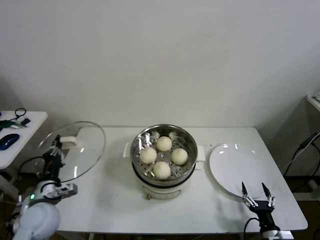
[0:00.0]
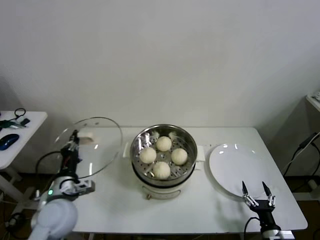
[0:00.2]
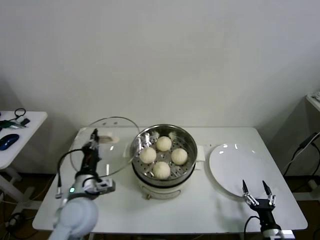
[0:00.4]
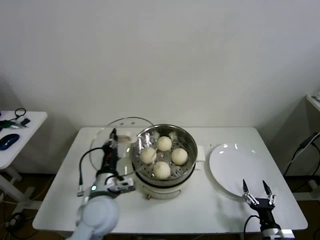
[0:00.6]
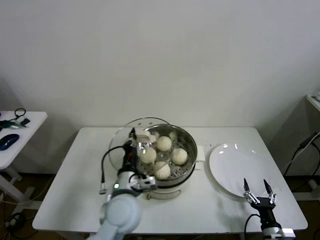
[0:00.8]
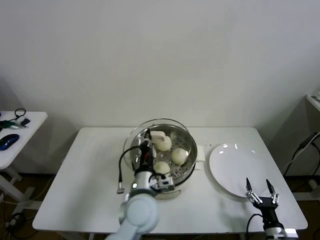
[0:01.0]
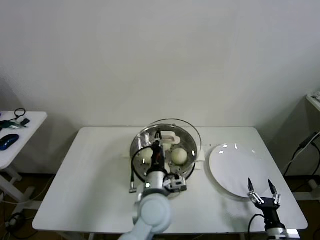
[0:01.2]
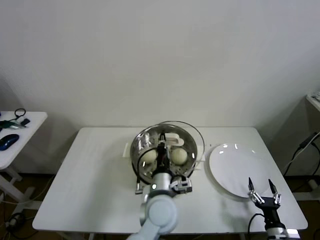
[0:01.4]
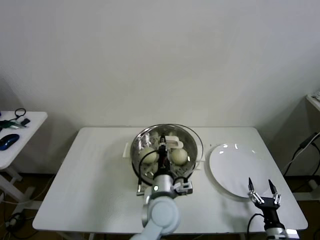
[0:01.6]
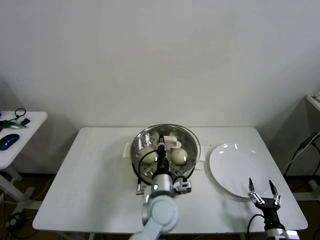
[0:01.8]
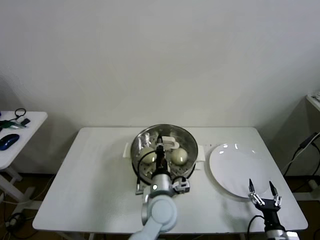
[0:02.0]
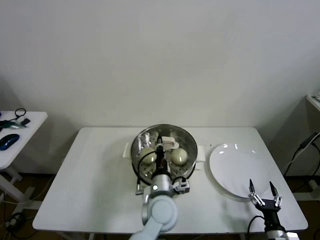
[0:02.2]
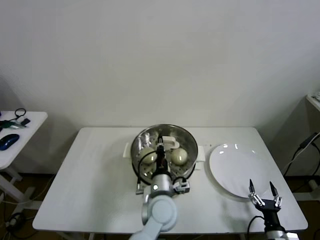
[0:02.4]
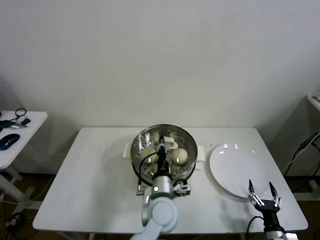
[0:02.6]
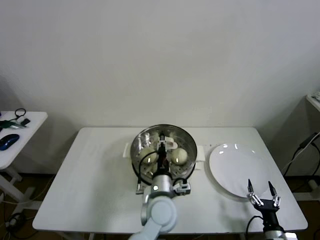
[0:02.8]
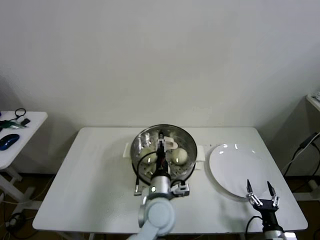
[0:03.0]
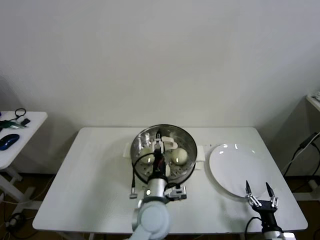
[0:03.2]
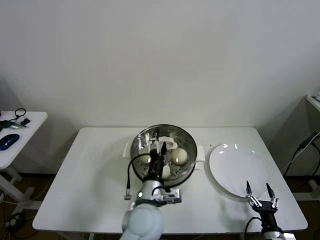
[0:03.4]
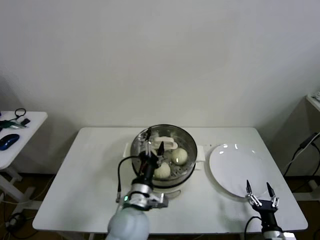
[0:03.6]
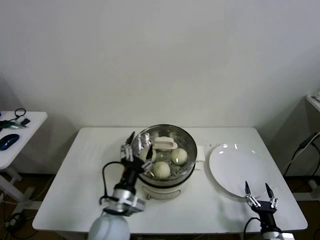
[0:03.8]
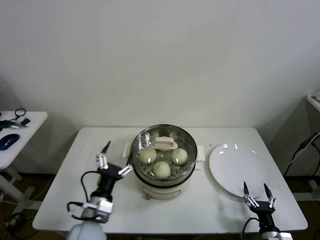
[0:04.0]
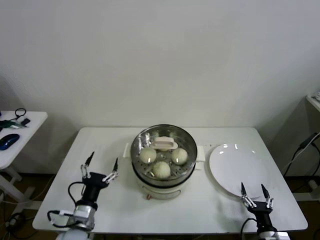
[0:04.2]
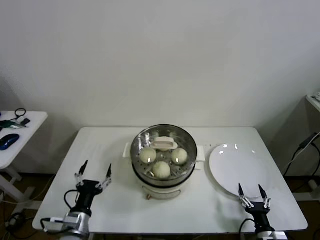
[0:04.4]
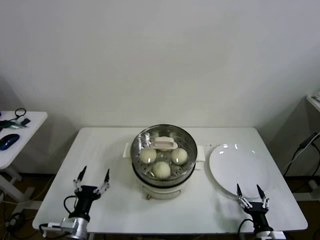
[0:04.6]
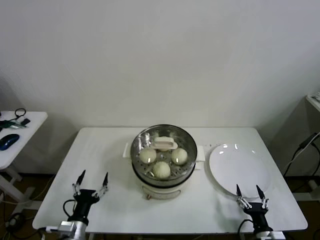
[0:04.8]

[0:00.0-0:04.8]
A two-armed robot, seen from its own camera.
Step, 0:00.0 to 0:02.8: Place the pot lid on the steamer with left gripper.
0:00.0 to 0:01.6: The left gripper heads to the right, covering some 35 cm.
0:01.6 to 0:03.2: The left gripper opens.
0:03.2 to 0:04.8: The left gripper goes approximately 25 cm to the left.

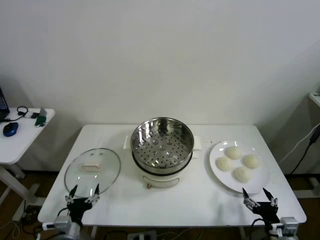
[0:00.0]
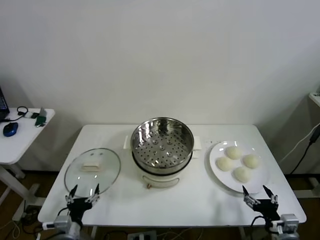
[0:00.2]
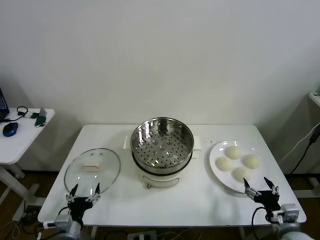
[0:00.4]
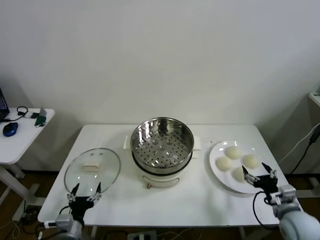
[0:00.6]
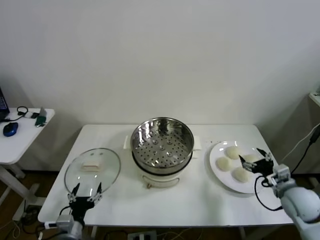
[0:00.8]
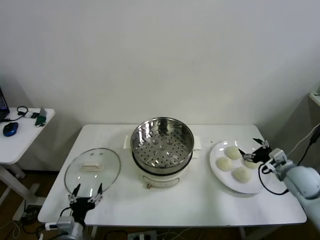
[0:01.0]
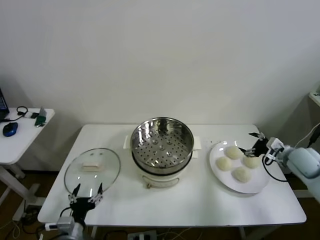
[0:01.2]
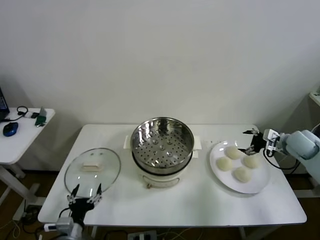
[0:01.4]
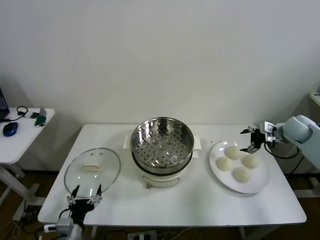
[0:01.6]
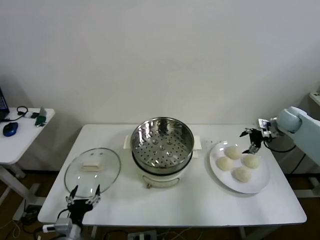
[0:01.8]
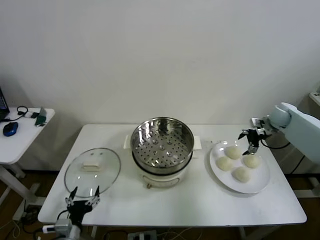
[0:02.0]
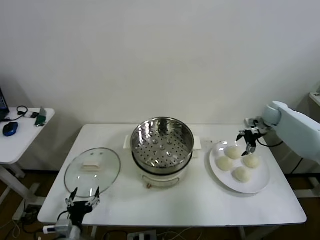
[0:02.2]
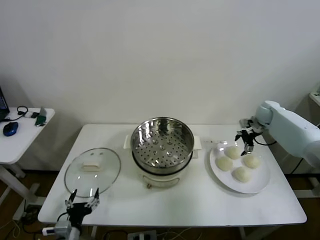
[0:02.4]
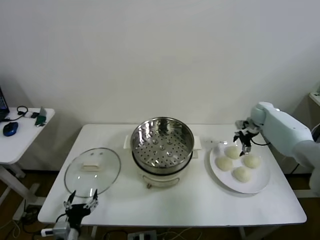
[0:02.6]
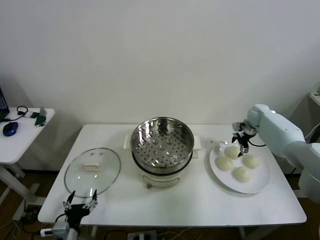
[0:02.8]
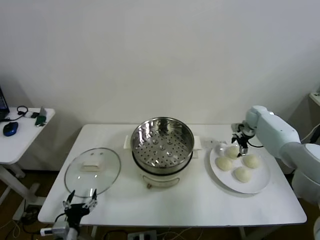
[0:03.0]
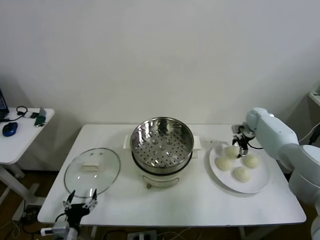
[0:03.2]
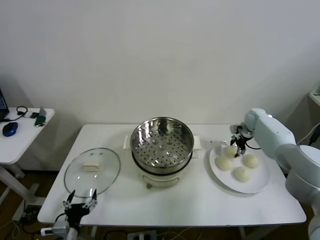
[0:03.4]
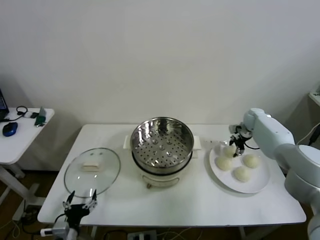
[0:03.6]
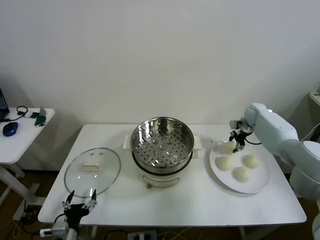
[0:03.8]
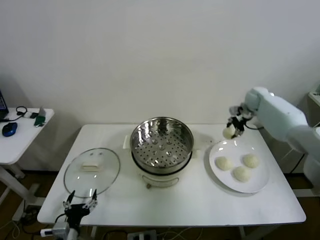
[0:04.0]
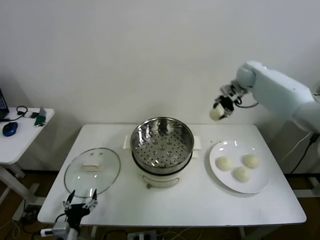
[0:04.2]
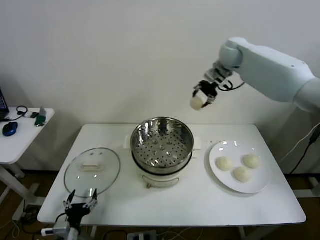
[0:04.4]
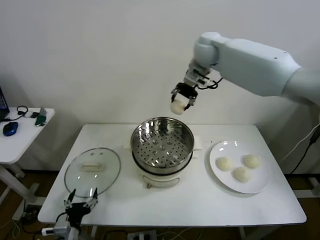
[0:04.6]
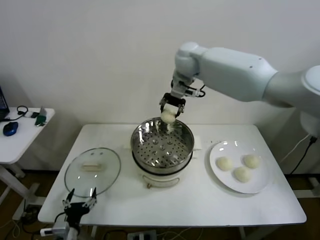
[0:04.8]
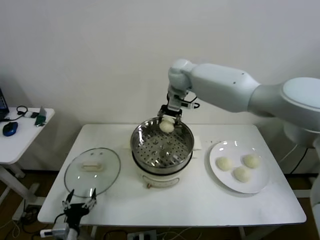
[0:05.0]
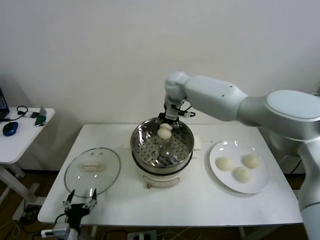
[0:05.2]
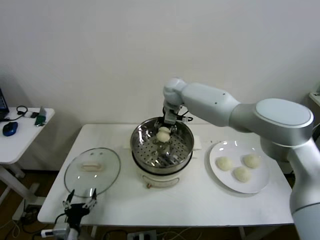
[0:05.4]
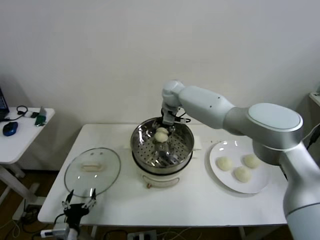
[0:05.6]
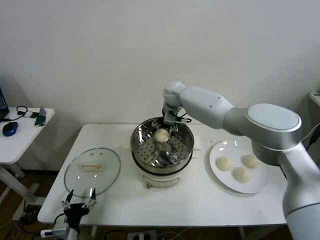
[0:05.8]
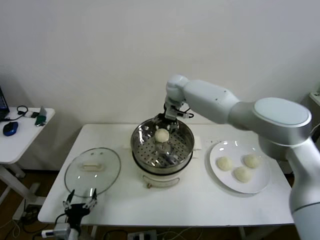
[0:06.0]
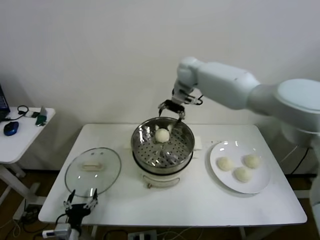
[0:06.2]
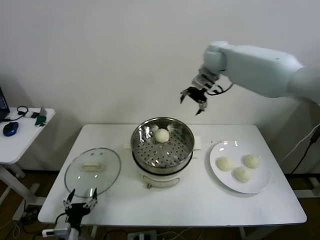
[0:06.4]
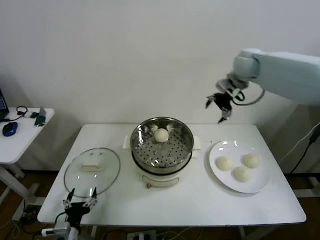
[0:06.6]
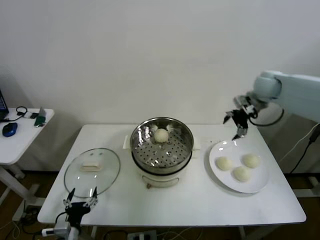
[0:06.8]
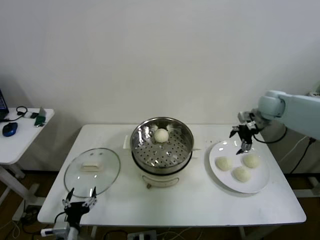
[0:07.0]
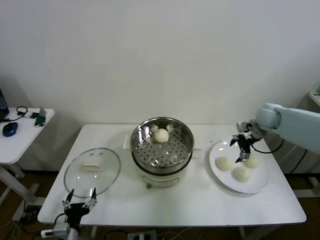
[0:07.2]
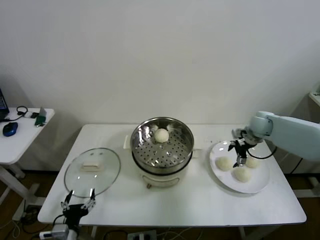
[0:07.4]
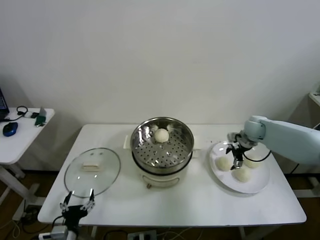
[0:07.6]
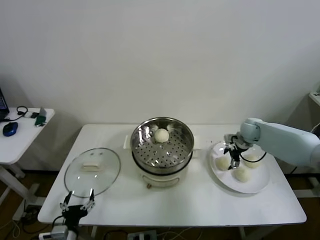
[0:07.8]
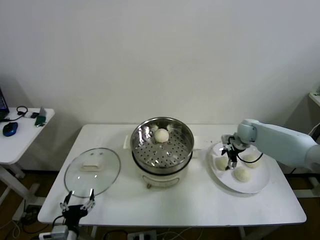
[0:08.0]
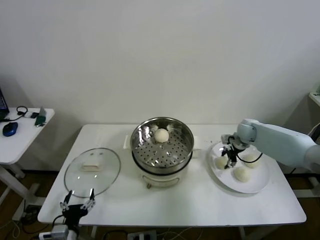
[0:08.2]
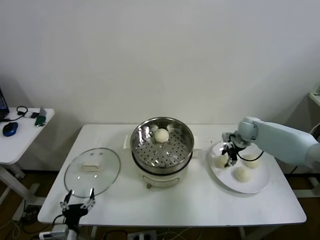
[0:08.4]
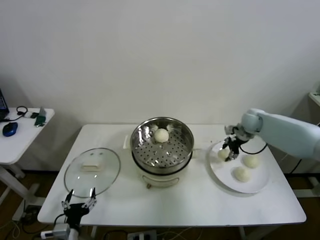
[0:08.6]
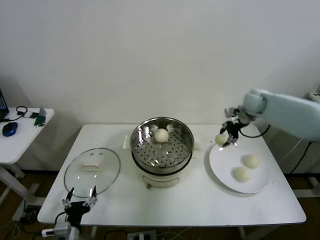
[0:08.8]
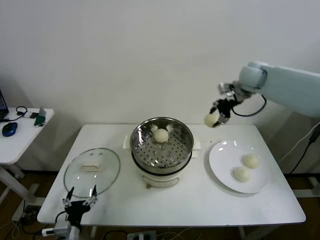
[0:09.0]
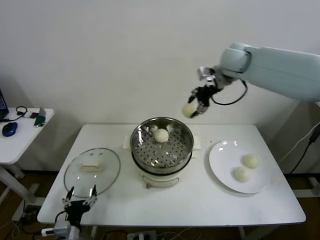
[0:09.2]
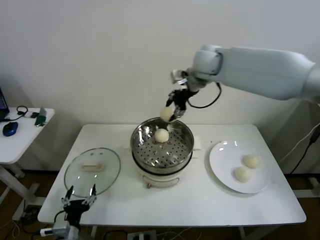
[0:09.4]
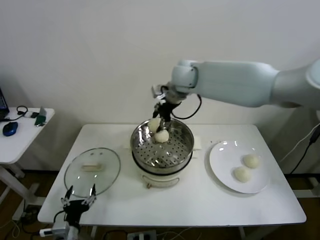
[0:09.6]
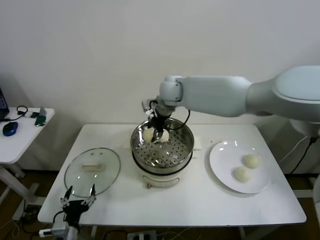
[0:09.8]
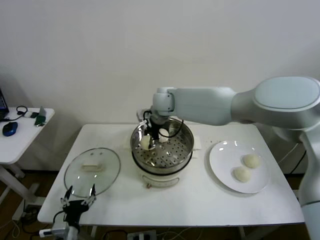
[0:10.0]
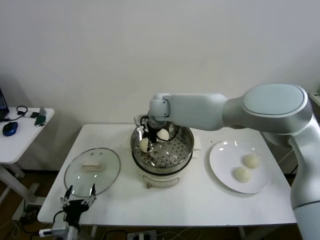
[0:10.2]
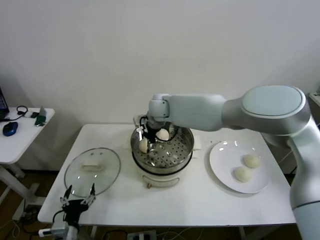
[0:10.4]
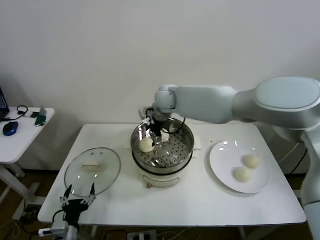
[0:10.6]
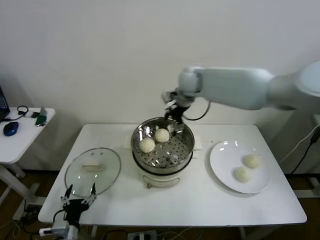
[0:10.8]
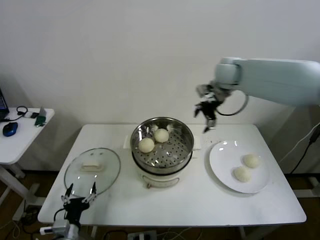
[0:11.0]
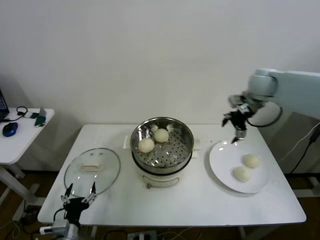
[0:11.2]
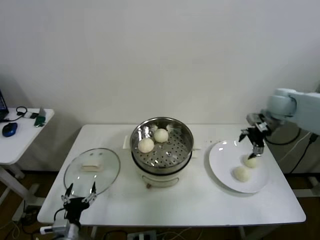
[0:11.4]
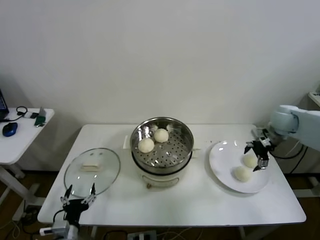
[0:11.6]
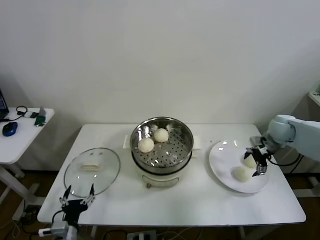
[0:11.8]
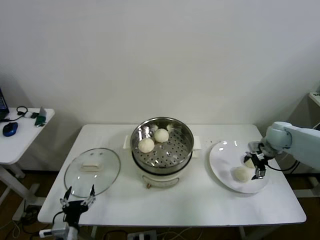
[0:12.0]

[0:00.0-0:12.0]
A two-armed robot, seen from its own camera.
Step, 0:00.0 to 0:03.4: Grasp the baozi in the plate with right gripper.
Step, 0:03.6 to 0:05.6: Place the baozi on the steamer with right gripper.
Step, 0:05.8 to 0:08.2: Grasp the baozi in the plate with right gripper.
Step, 0:08.4 to 0:10.4: Place the baozi on the steamer with right gripper.
0:01.6 to 0:03.0: The right gripper heads forward, downward and to the left, covering about 15 cm.
0:03.0 to 0:04.4: The right gripper travels upward and to the left by approximately 40 cm, and closes up.
0:04.4 to 0:06.0: The right gripper is displaced downward and to the left by roughly 15 cm, and opens.
0:06.0 to 0:07.6: The right gripper moves to the right and downward, roughly 35 cm.
0:07.6 to 0:09.0: The right gripper heads upward, covering some 25 cm, and closes.
0:09.0 to 0:10.4: The right gripper travels to the left and downward by roughly 30 cm, and opens its fingers.
0:10.4 to 0:12.0: The right gripper moves to the right, roughly 40 cm.

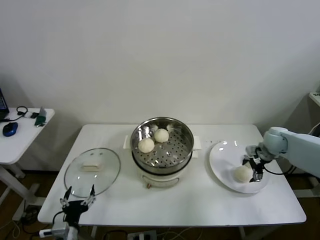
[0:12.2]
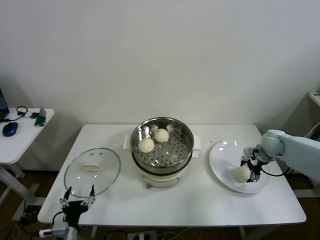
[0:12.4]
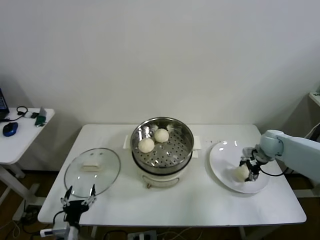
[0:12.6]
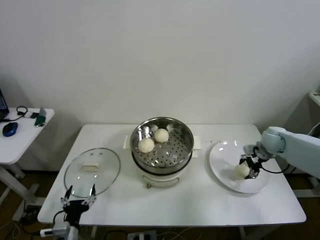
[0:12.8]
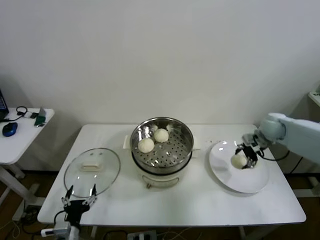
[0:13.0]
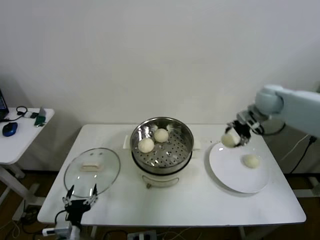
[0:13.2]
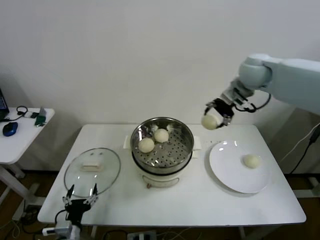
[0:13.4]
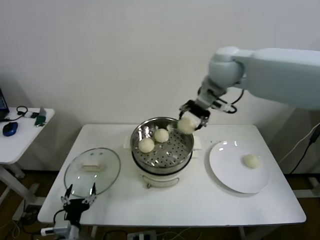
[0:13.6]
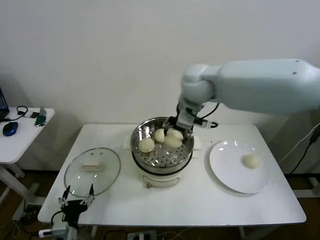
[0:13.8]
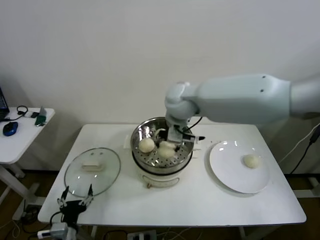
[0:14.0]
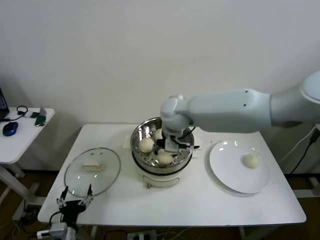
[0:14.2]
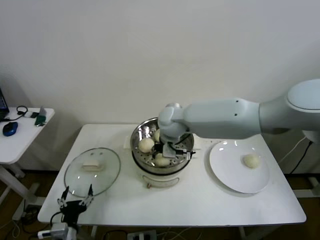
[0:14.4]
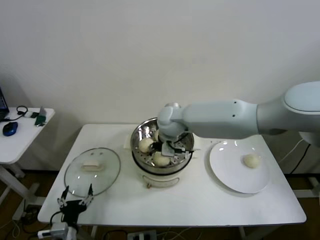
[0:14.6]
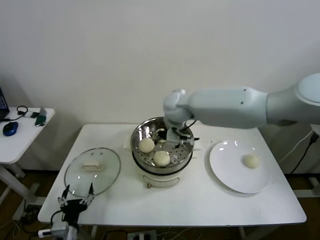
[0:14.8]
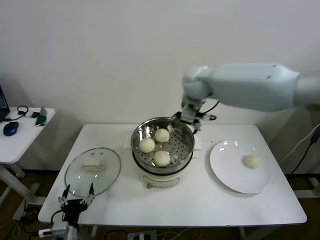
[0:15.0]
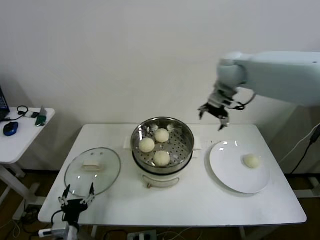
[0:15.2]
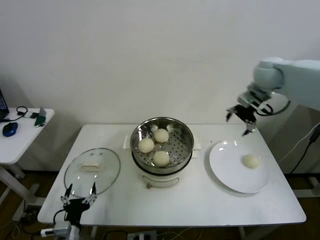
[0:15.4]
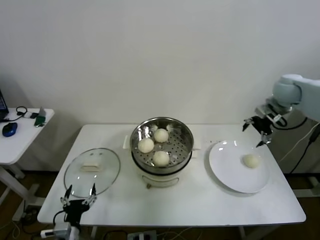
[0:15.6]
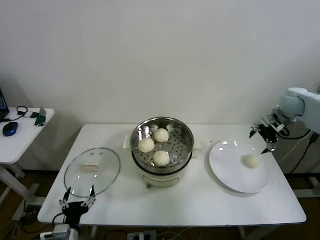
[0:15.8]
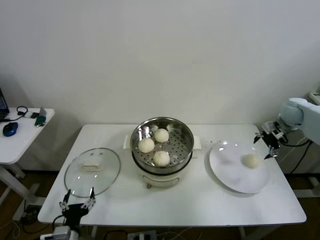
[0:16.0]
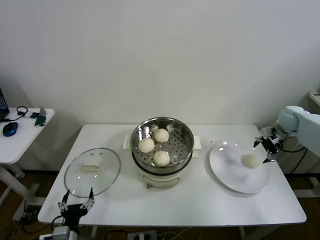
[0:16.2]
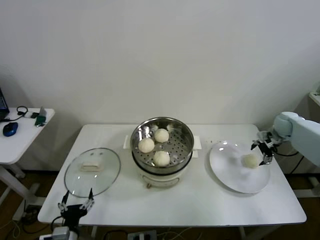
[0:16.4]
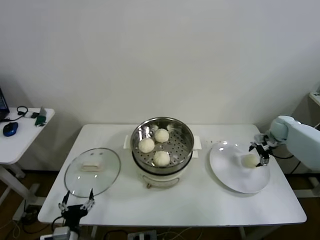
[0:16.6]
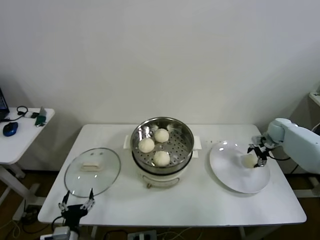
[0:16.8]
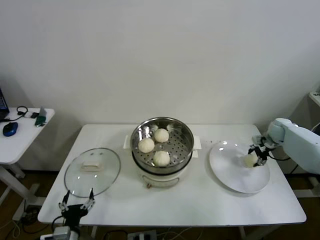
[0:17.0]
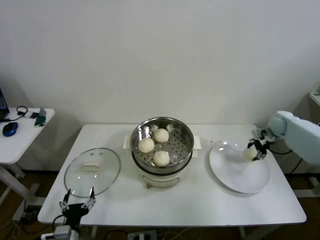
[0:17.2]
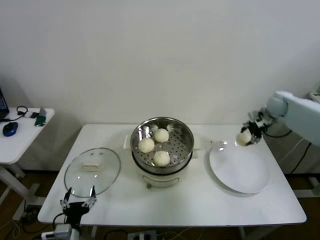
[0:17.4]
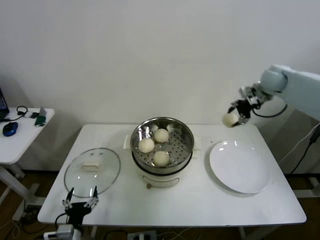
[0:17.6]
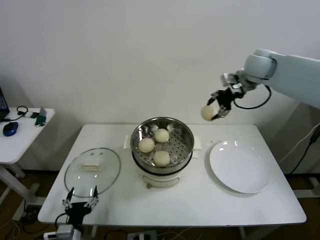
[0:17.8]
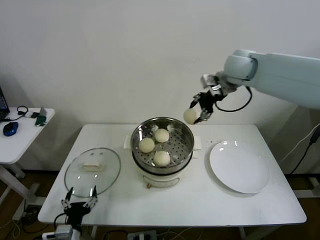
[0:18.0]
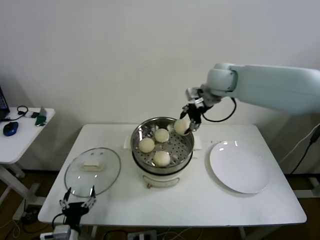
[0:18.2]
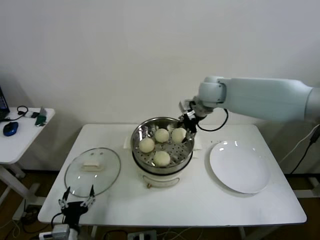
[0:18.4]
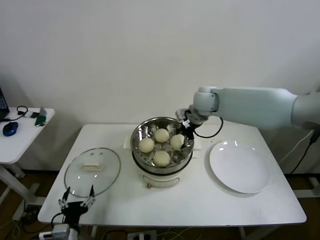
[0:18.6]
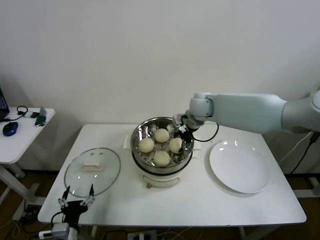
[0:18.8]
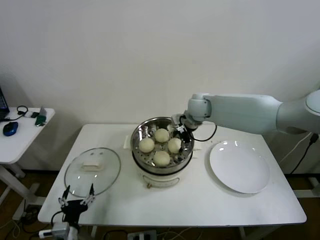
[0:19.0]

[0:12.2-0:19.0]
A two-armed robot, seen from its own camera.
Step, 0:12.8 to 0:14.4: Place the baozi on the steamer with right gripper.
Step, 0:14.6 to 0:16.8: Grasp the baozi in the plate with right gripper.
0:12.2 to 0:13.6: The right gripper is displaced upward and to the left by roughly 40 cm, and closes up.
0:13.6 to 0:15.0: The right gripper travels downward and back again, some 15 cm each way, and opens.
0:15.0 to 0:16.2: The right gripper goes roughly 40 cm to the right and downward.
0:16.2 to 0:17.6: The right gripper goes roughly 20 cm upward and to the left, and closes up.
0:17.6 to 0:19.0: The right gripper heads to the left and downward, covering some 25 cm, and opens up.
